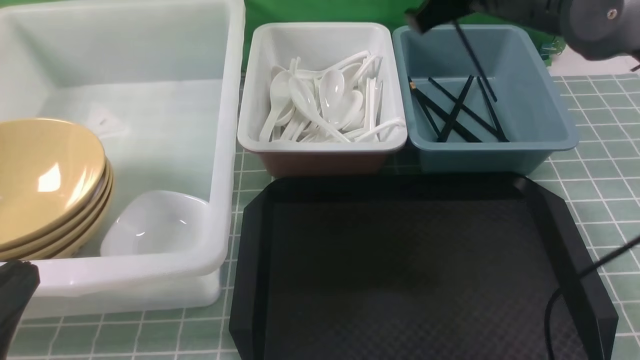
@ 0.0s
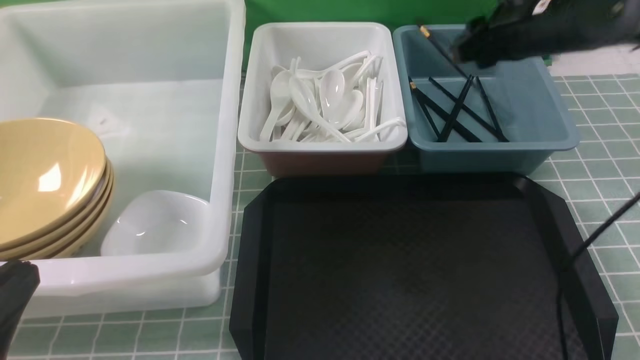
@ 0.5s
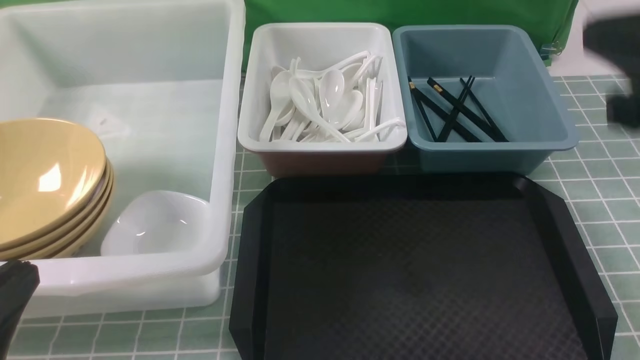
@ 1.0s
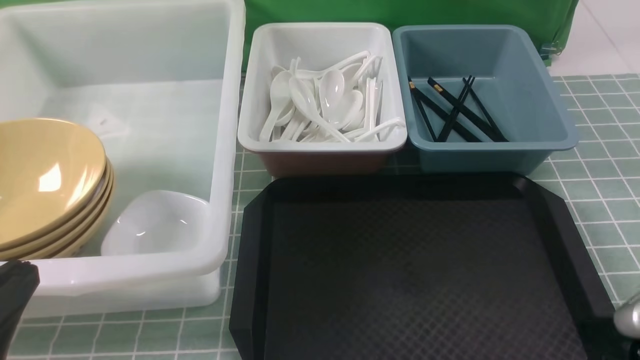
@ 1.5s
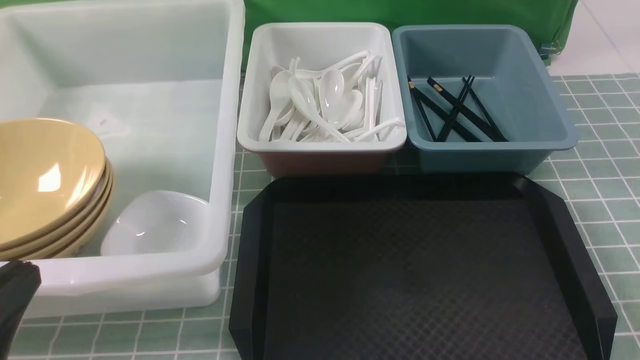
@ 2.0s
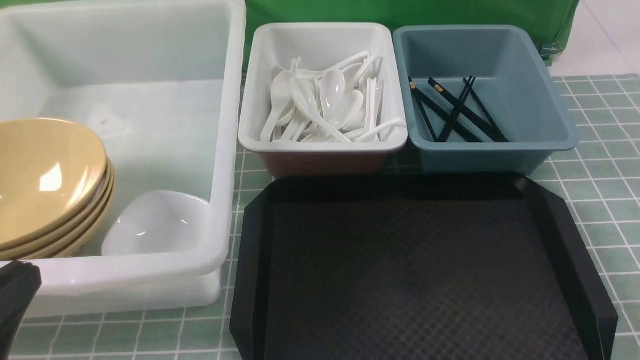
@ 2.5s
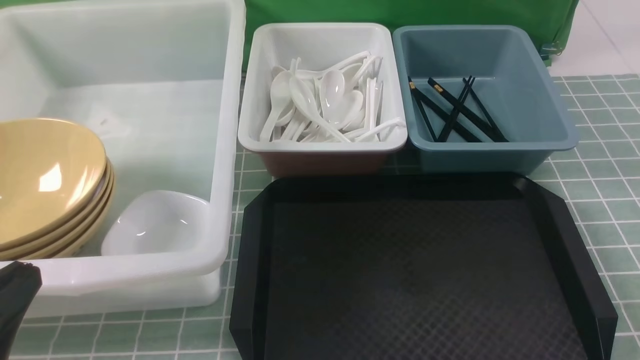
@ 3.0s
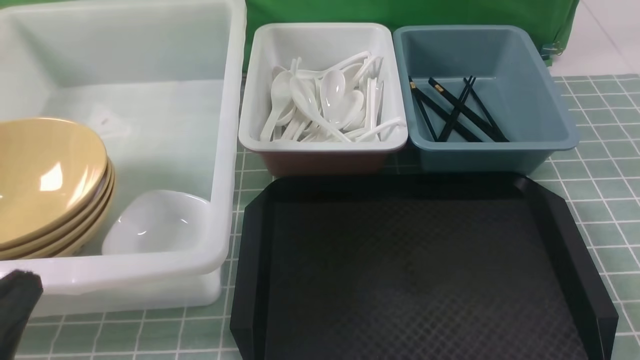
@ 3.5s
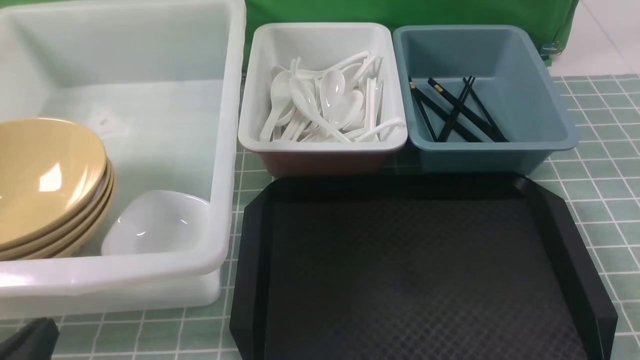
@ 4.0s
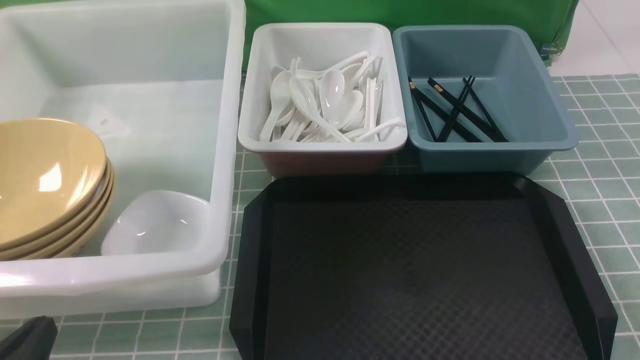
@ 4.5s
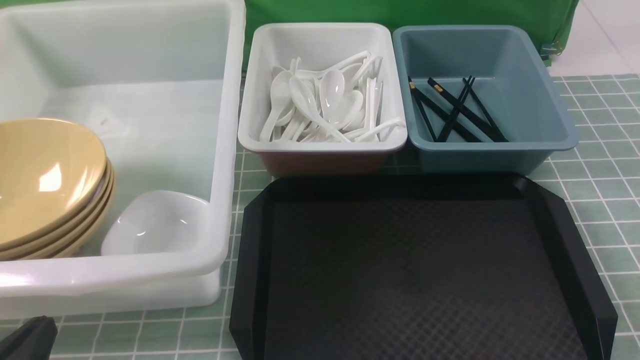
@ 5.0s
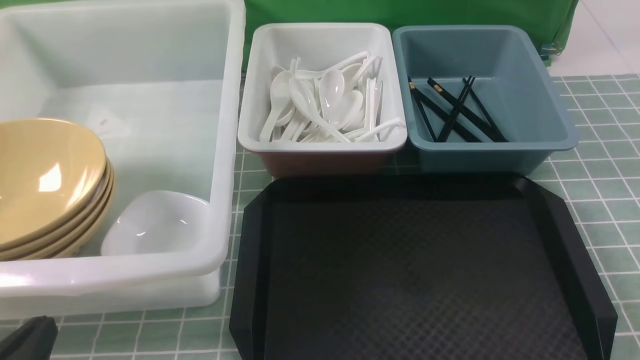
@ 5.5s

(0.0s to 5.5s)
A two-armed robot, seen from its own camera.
Task of the whole recording: on blue table put chopsticks spoon bowls plates into blue grey white boxes.
0.0s - 2.0s: The right gripper is displaced backward and to the right by roughly 35 cm.
2.0s - 3.5s: There are only small adjustments of the grippers.
3.5s - 5.5s: The left gripper heads downward, covering roughly 5 cm.
